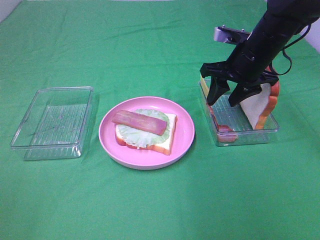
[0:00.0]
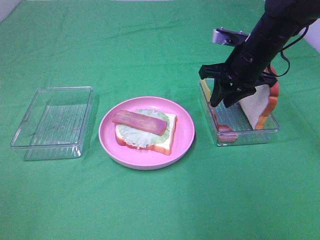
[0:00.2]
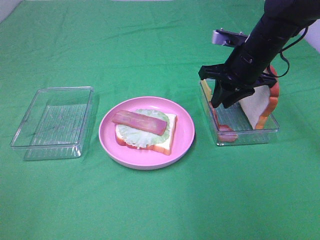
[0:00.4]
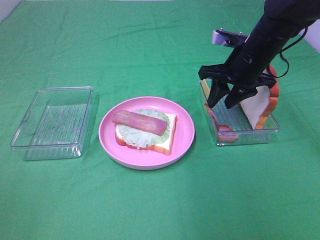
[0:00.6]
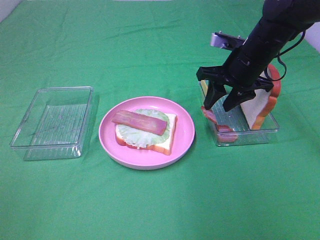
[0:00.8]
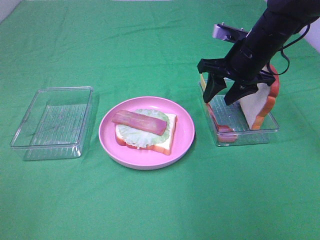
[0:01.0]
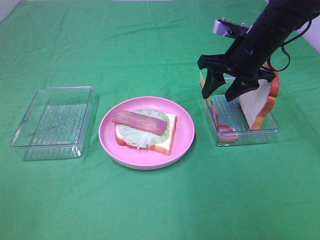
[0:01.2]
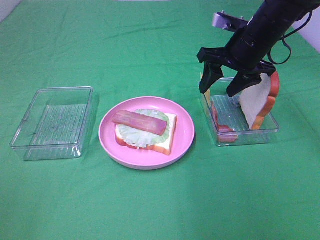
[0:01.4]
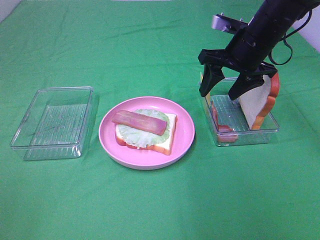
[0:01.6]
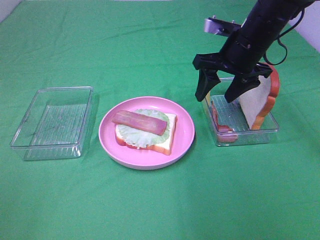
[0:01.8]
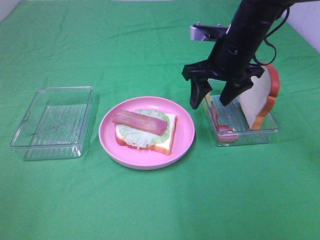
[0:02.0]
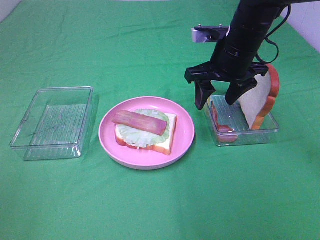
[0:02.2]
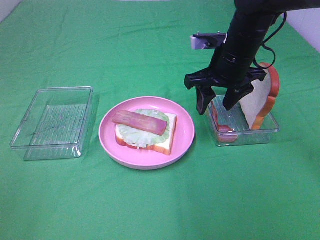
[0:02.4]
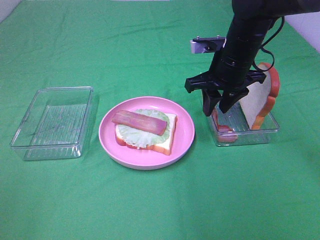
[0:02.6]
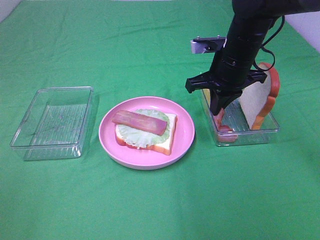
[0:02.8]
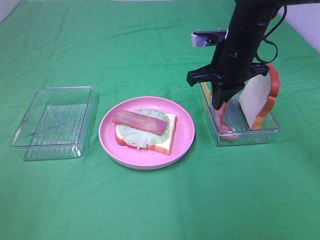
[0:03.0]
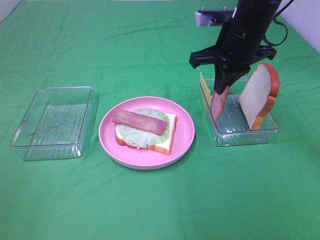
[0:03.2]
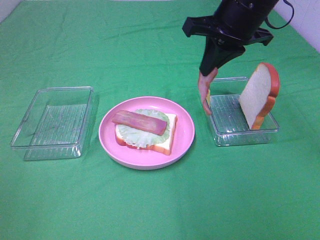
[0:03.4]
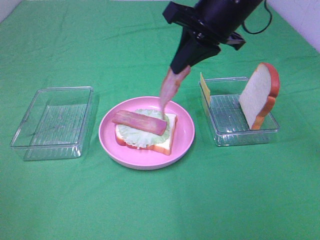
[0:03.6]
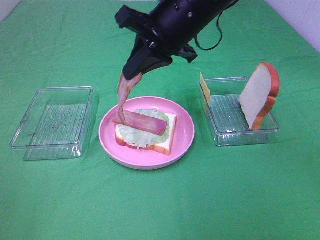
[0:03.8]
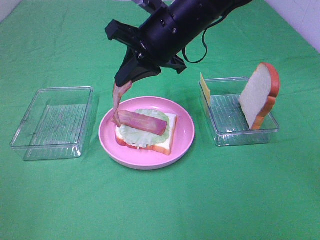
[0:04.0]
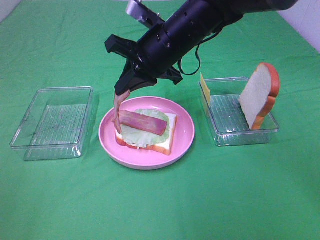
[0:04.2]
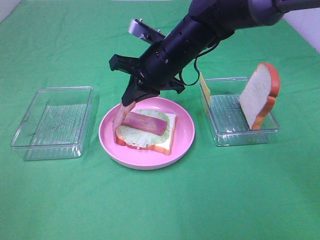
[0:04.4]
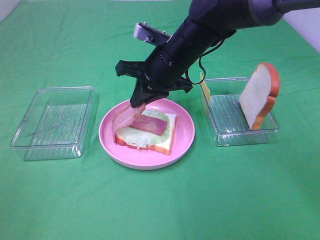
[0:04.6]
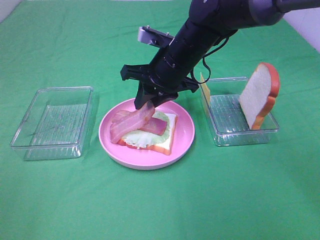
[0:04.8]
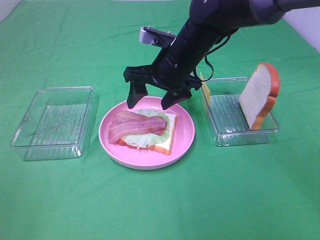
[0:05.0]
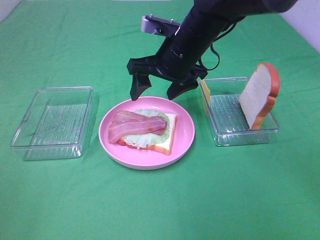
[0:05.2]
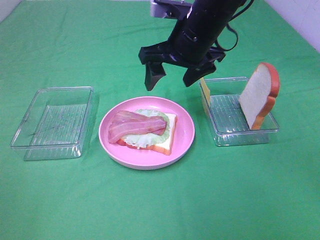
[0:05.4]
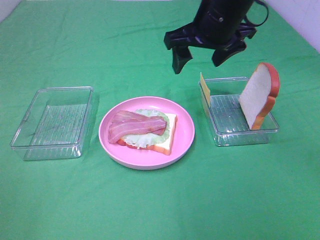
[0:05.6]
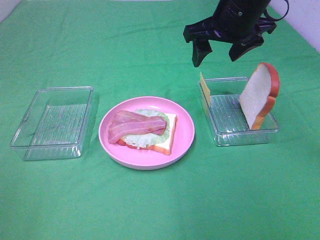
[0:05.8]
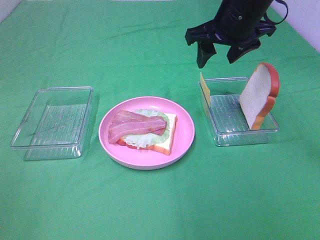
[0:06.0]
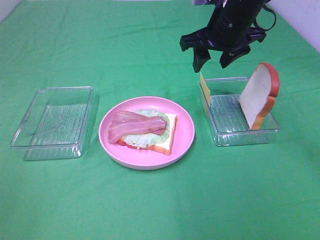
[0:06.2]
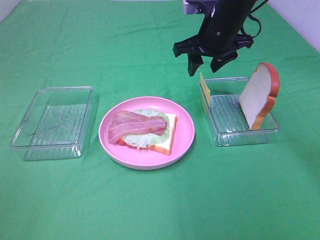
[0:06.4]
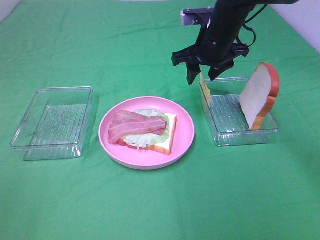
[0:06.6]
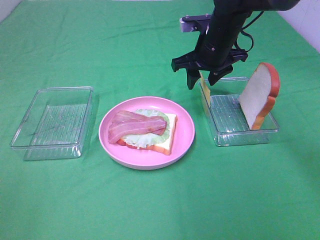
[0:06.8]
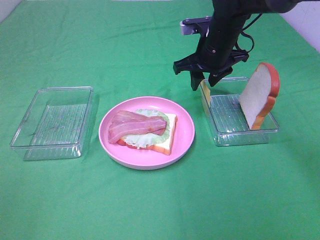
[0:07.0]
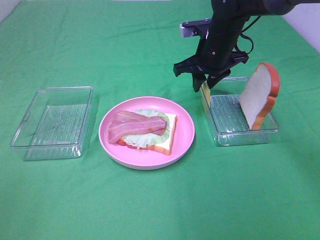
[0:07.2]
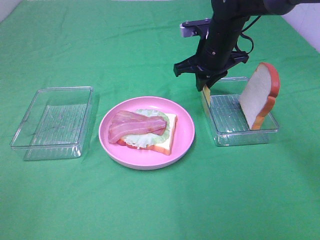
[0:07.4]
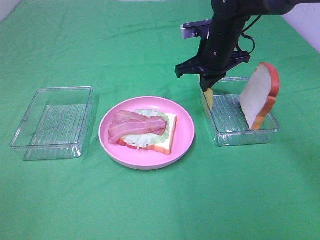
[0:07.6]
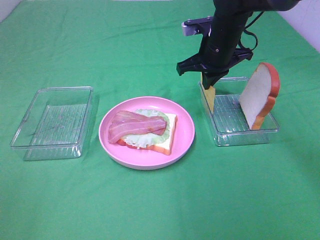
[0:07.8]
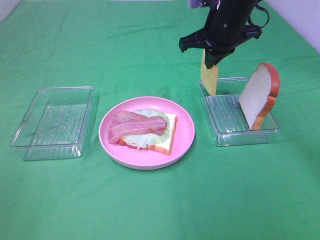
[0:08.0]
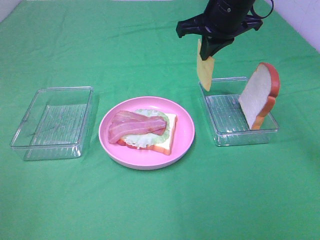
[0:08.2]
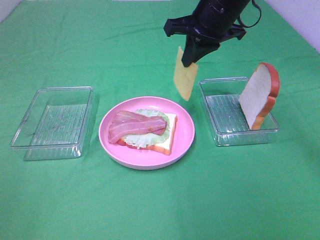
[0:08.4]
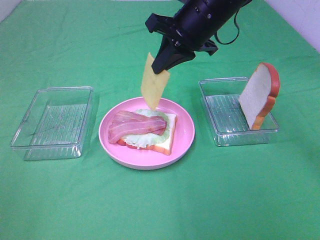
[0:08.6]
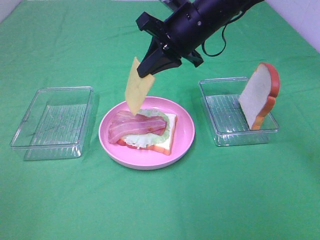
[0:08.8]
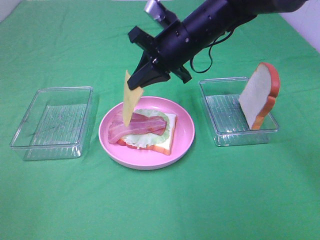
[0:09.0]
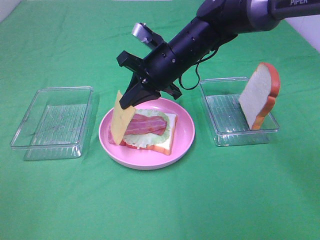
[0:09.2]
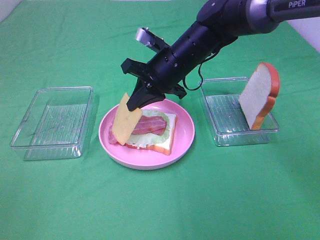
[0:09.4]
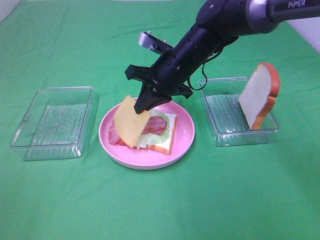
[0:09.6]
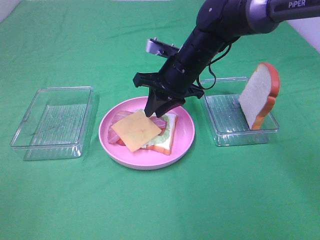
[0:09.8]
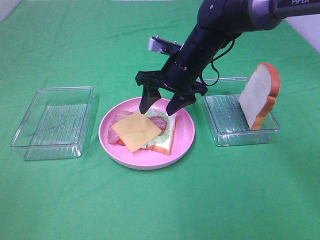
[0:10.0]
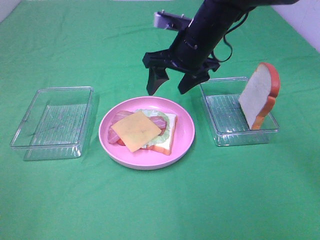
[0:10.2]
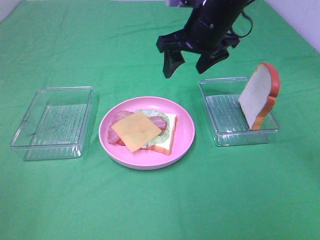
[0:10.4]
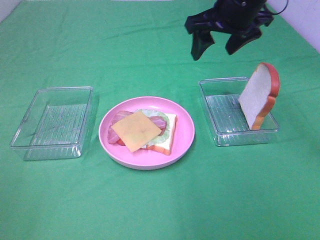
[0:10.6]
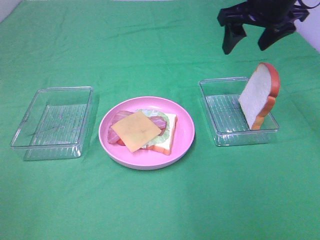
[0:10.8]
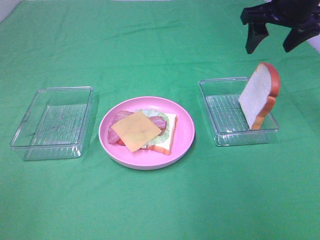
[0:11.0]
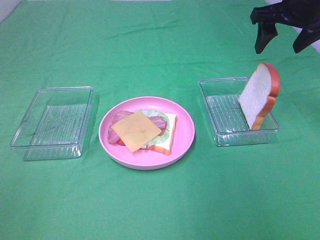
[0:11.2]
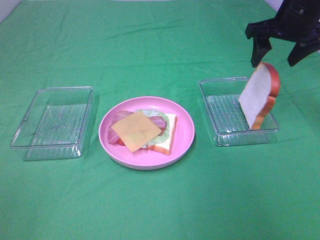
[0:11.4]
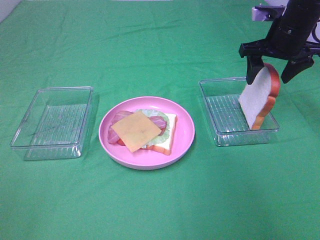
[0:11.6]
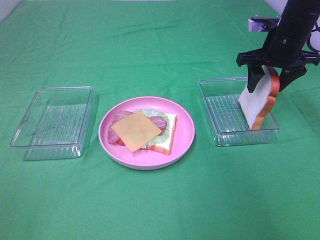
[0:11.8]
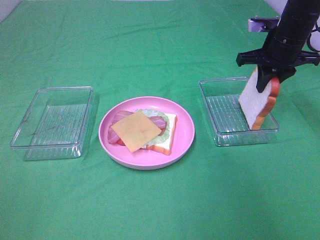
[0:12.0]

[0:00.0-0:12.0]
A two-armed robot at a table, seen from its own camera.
Task of the whole recording: Make sandwiches.
Step, 0:00.0 to 0:03.2: Right hand:grab the bacon.
Step, 0:03.4 to 0:05.0: Right hand:place bacon on bacon.
Step, 0:05.2 to 0:07.8: Right hand:grab the cheese slice.
Step, 0:08.0 to 0:10.0: Right hand:place the cheese slice on top of the bacon.
0:00.0 to 0:01.6: There are only small adjustments of the grippers.
0:01.6 to 0:03.0: The right gripper closes up.
0:03.0 to 0:04.4: The right gripper is displaced to the left by roughly 10 cm.
0:04.4 to 0:06.0: The right gripper moves to the right and upward, about 15 cm, and opens its fingers.
0:06.0 to 0:07.6: The right gripper goes some 10 cm downward, and closes.
0:07.6 to 0:09.0: The right gripper is displaced to the left by roughly 5 cm.
0:09.0 to 0:10.4: The right gripper heads upward, covering roughly 5 cm, and opens up.
0:10.4 to 0:12.0: The right gripper moves to the right and downward, about 15 cm, and closes.

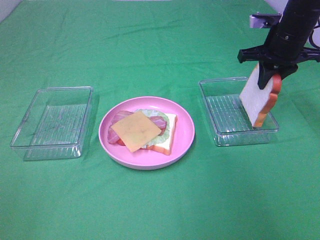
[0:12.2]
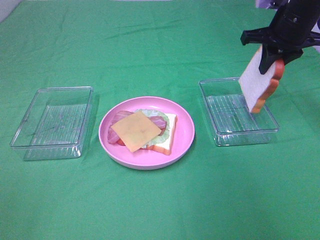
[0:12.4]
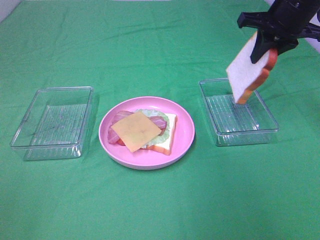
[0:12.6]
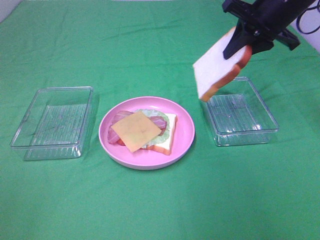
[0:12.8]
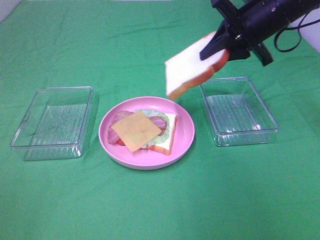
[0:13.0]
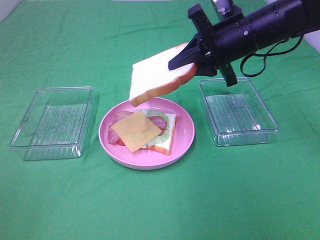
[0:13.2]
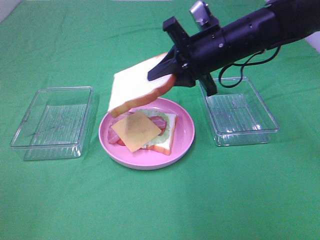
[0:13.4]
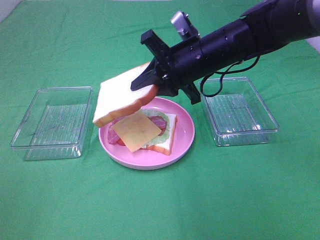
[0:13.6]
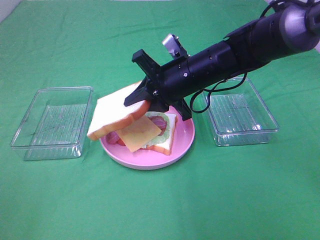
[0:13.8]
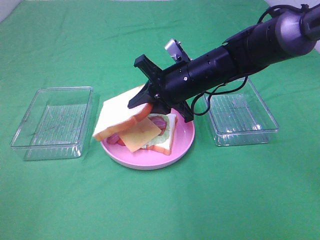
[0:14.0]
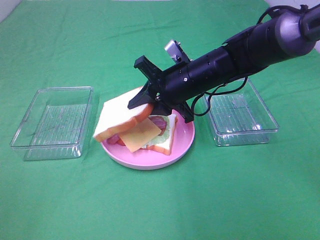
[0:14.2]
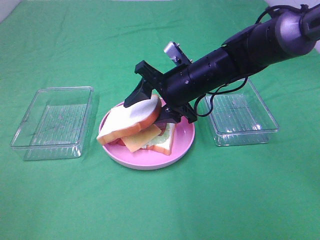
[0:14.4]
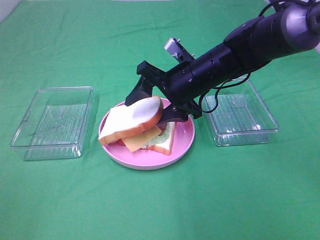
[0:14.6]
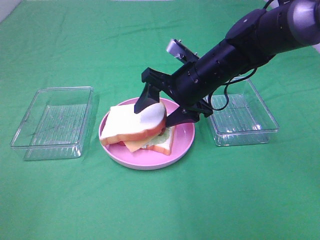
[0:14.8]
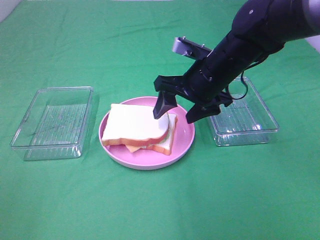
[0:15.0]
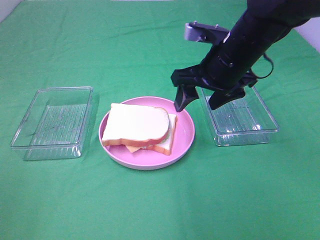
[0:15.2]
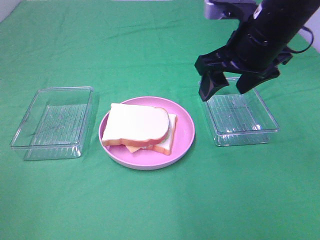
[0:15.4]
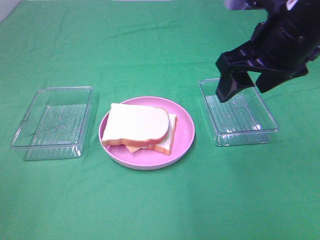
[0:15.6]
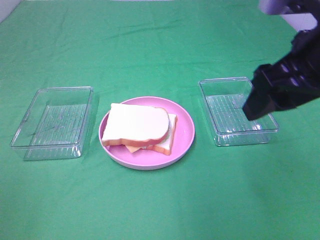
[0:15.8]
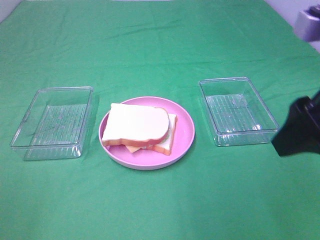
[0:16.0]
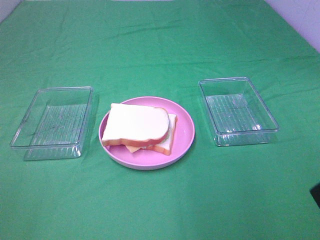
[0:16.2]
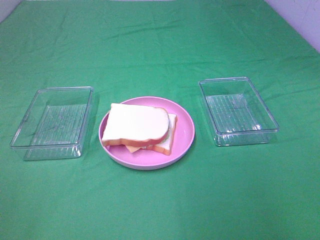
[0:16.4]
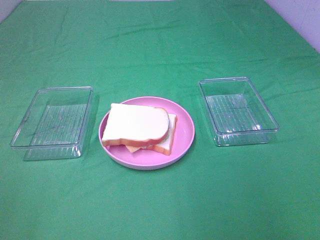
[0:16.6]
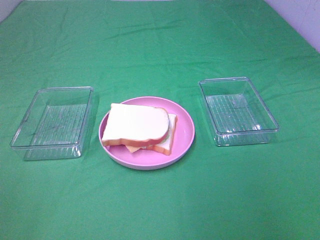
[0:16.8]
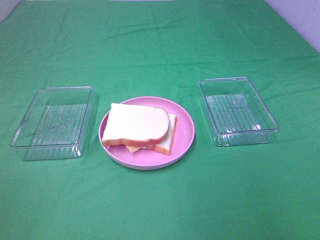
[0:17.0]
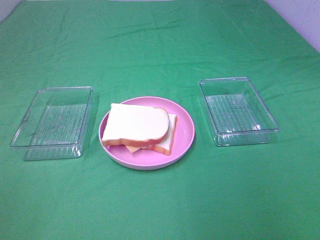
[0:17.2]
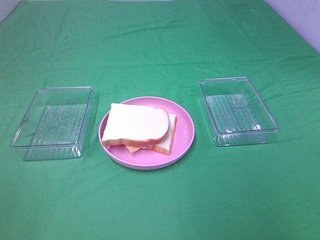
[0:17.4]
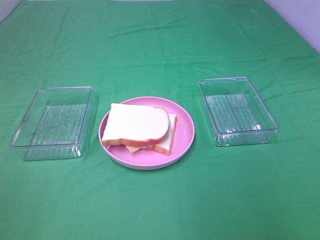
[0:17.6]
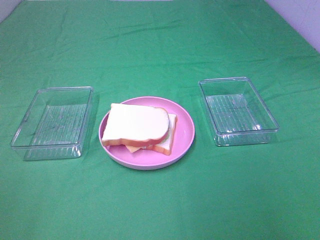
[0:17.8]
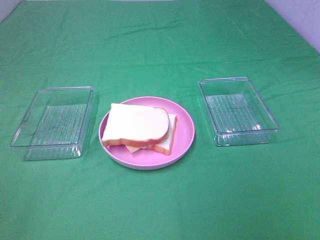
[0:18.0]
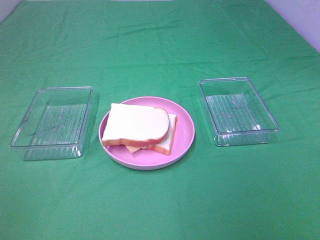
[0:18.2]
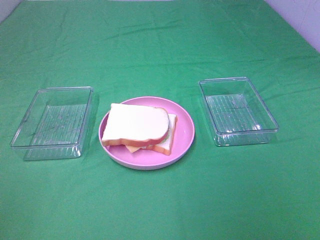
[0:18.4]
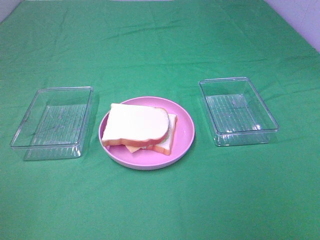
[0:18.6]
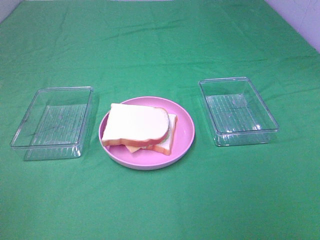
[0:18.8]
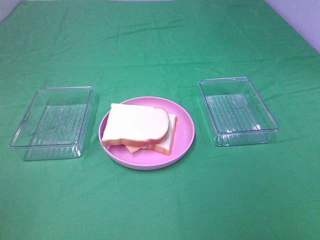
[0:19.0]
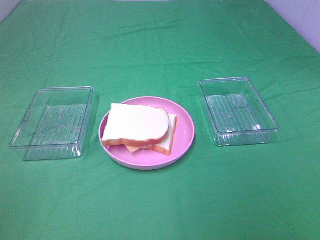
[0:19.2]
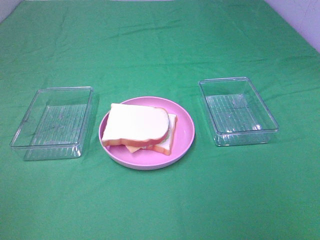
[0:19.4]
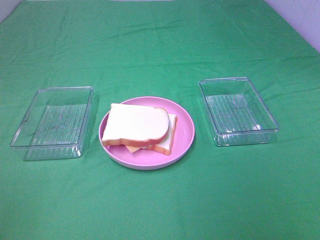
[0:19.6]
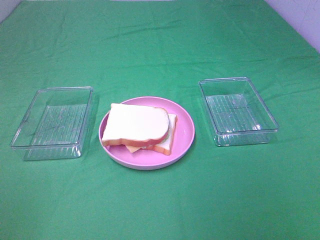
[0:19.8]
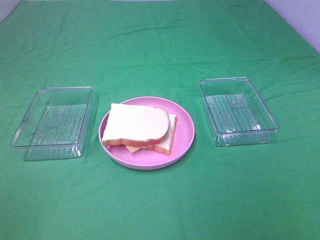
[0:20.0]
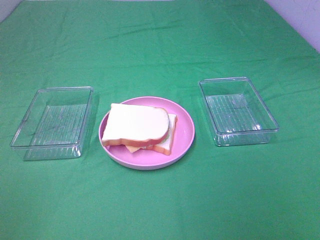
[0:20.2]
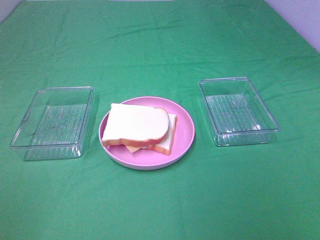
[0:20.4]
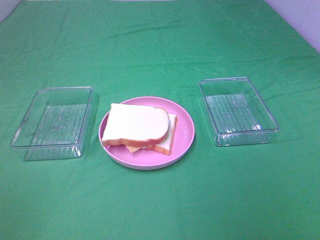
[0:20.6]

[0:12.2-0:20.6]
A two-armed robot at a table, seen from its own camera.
Task of the whole recording: Make sandwiches.
Step, 0:12.2 to 0:15.0: Right hand:place the bread slice on the cheese slice.
0:12.2 to 0:13.6: The right gripper is displaced to the left and backward by approximately 20 cm.
0:13.6 to 0:15.0: The right gripper opens its fingers.
0:15.0 to 0:16.4: The right gripper travels backward and to the right by approximately 35 cm.
